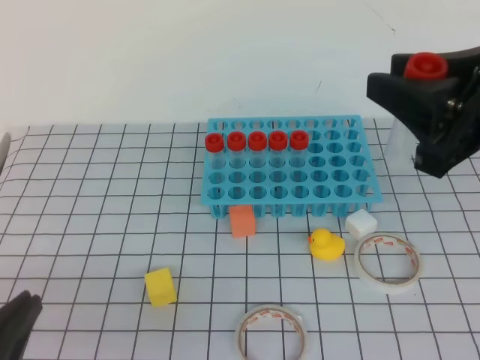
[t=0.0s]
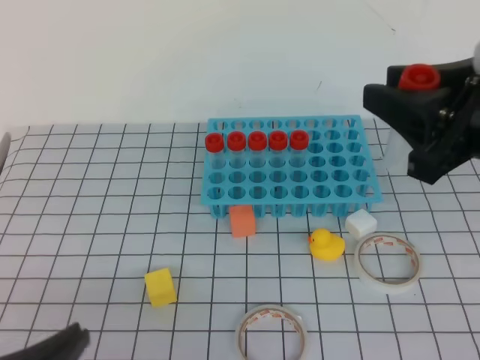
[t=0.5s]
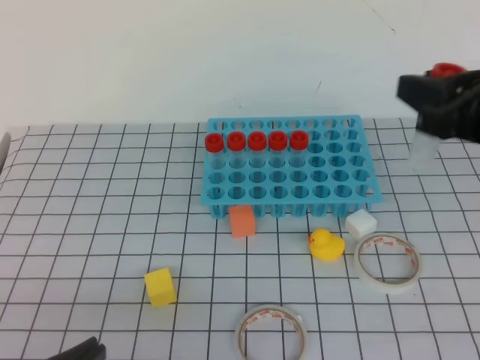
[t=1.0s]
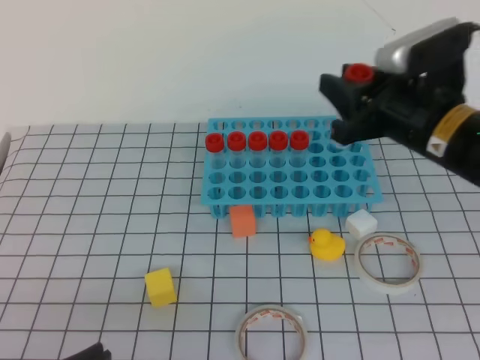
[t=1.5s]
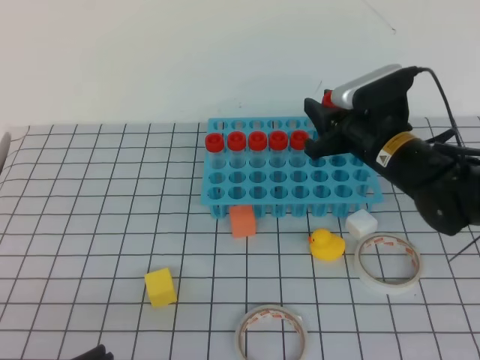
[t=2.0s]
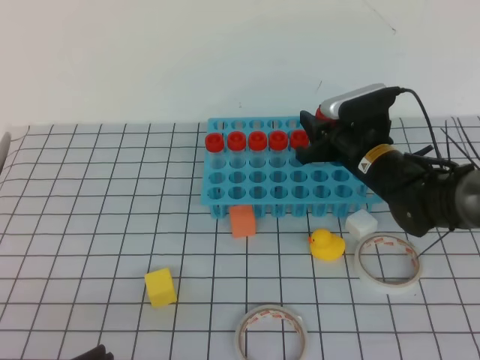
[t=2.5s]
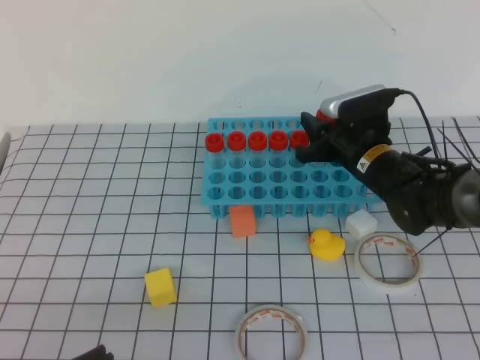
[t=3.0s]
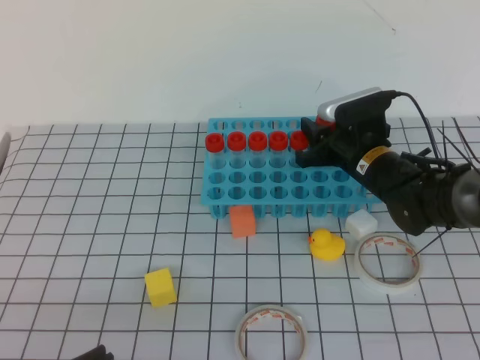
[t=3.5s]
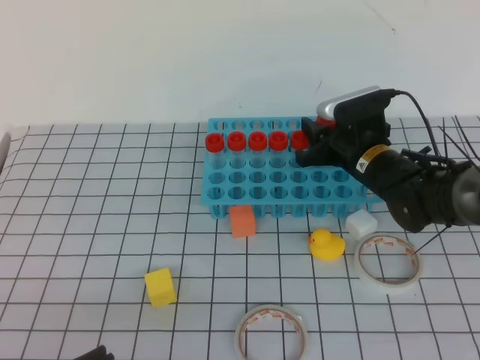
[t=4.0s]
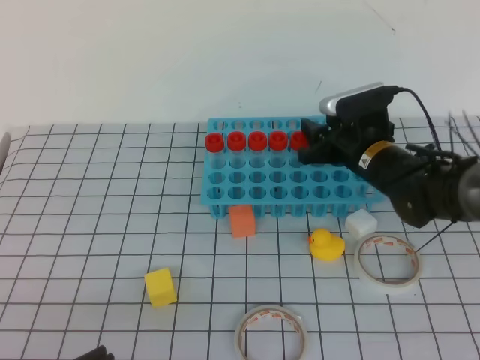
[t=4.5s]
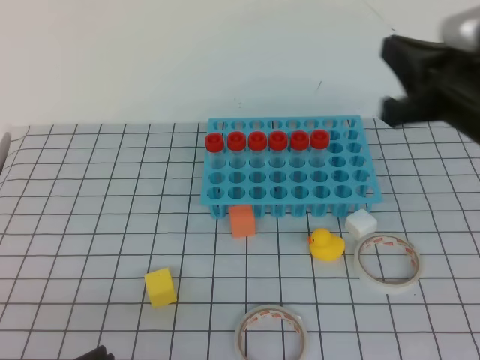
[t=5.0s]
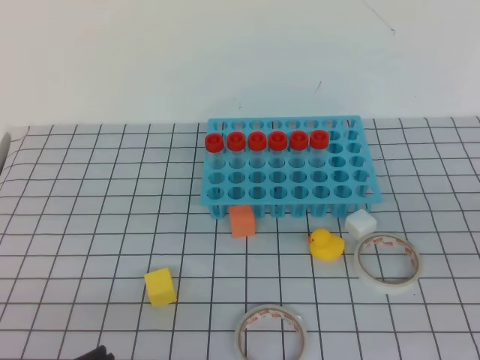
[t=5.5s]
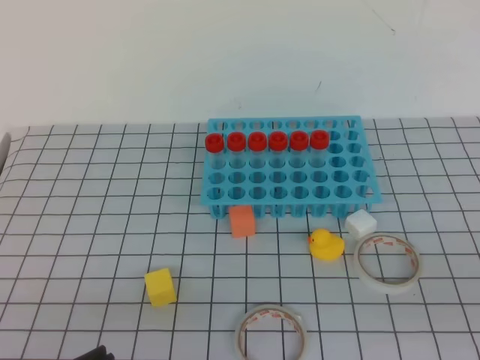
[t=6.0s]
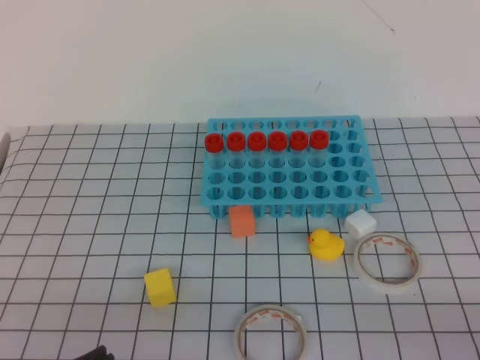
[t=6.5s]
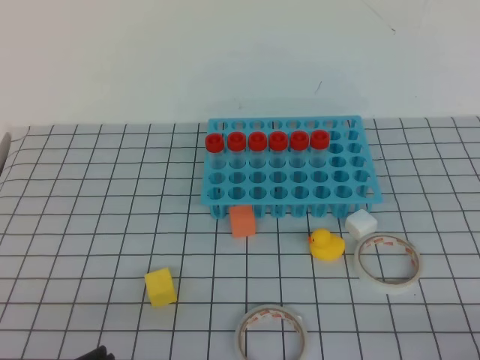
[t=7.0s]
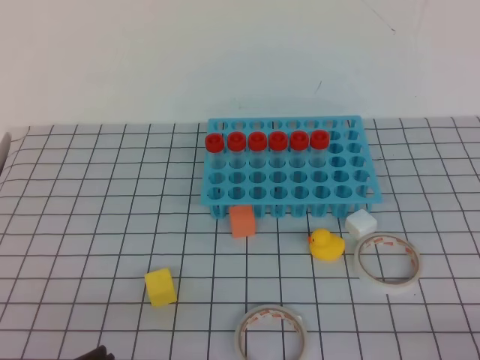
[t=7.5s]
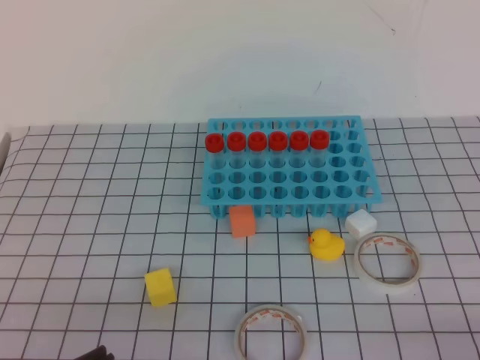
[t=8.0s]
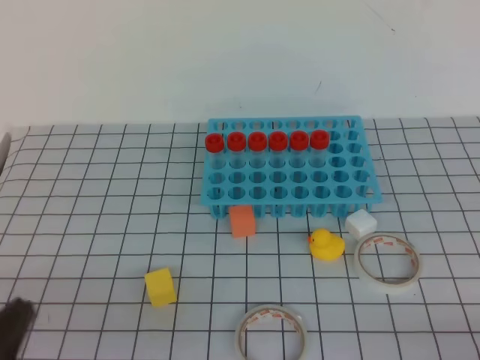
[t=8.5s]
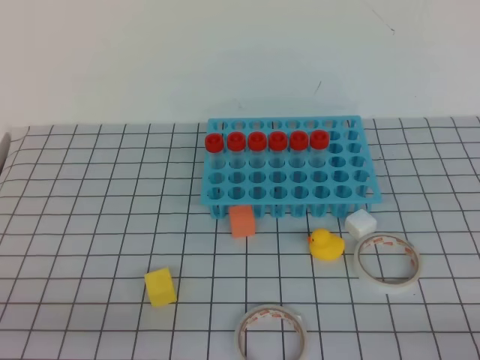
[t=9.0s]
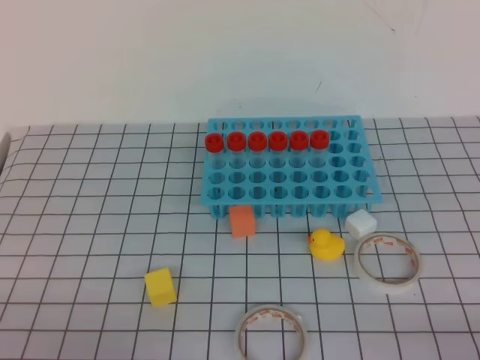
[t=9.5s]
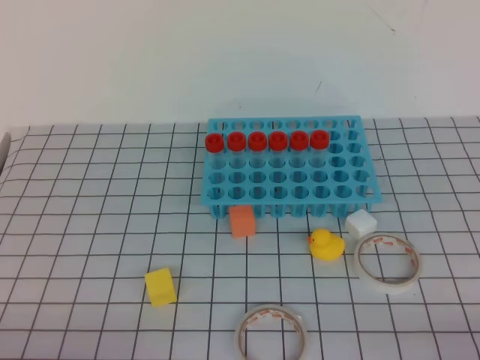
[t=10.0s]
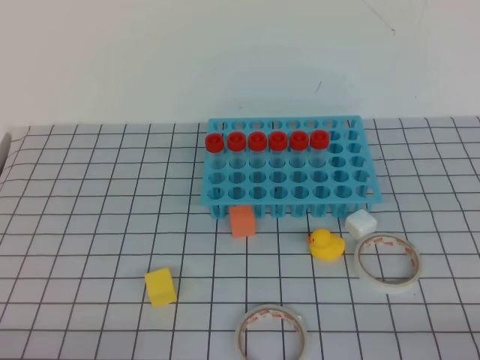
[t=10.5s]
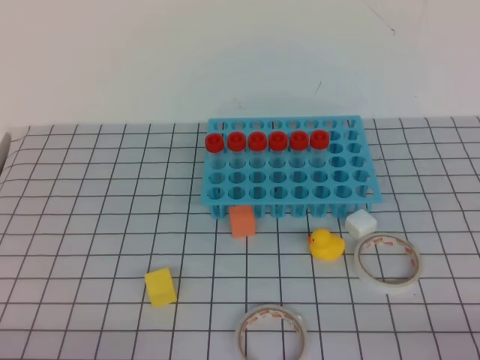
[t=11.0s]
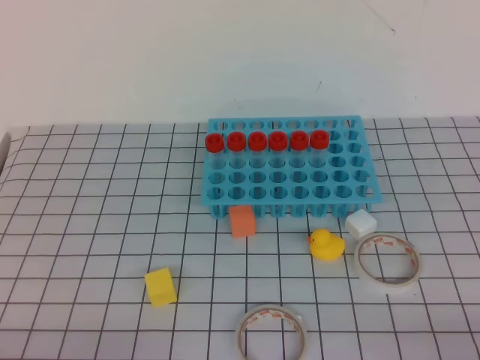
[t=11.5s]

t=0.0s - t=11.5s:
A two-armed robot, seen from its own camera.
t=0.0s - t=2.0s: The right gripper moves forward and downward, roughly 20 cm.
t=2.0s - t=4.0s: The right gripper travels downward by roughly 5 cm.
t=4.0s - t=6.0s: The right gripper shifts roughly 40 cm backward and to the right, and closes up.
